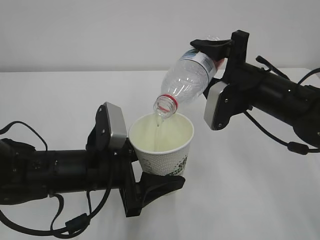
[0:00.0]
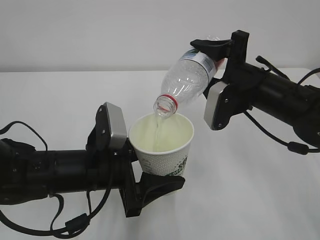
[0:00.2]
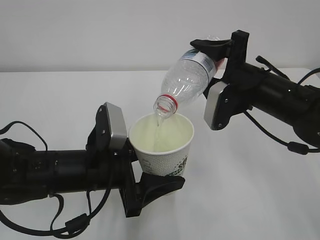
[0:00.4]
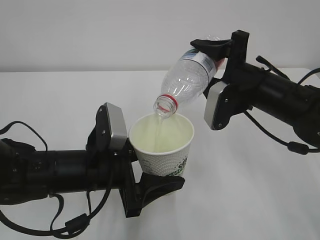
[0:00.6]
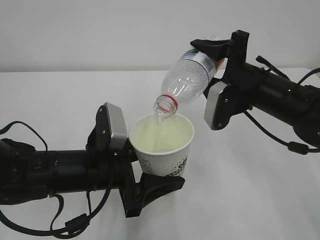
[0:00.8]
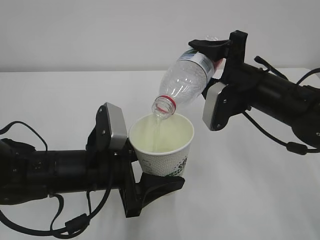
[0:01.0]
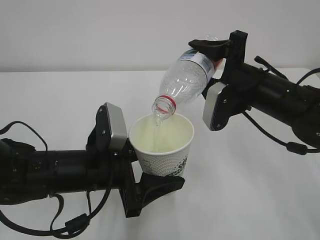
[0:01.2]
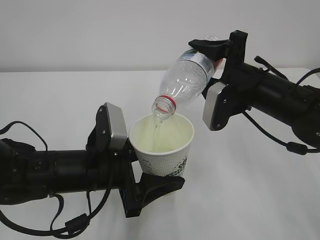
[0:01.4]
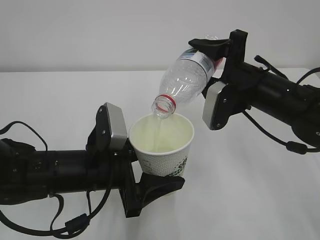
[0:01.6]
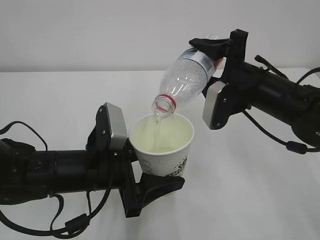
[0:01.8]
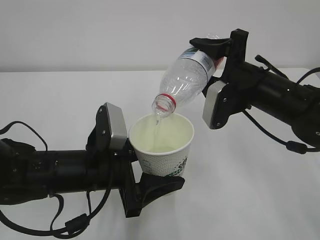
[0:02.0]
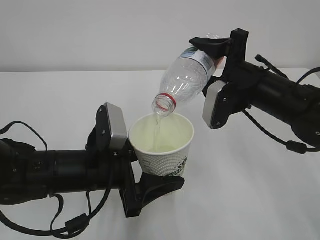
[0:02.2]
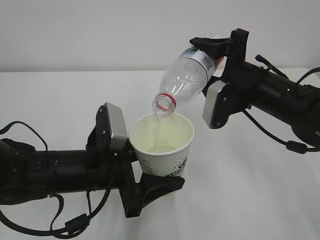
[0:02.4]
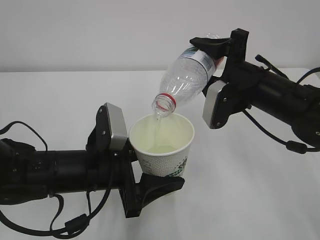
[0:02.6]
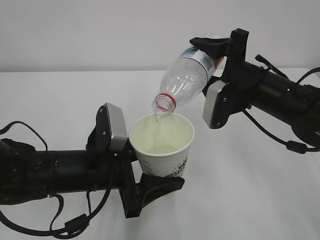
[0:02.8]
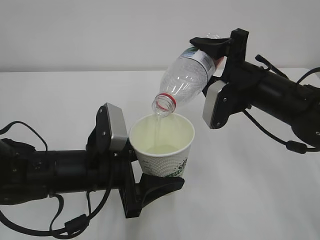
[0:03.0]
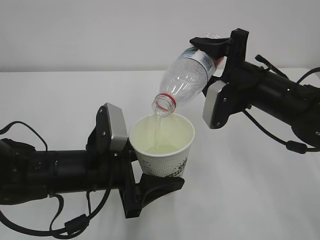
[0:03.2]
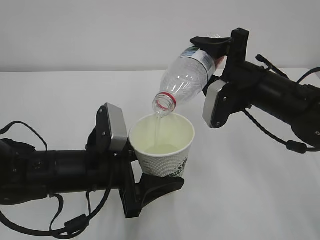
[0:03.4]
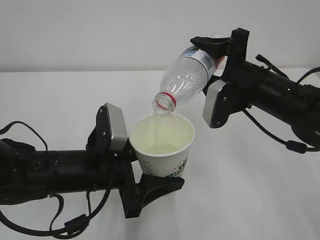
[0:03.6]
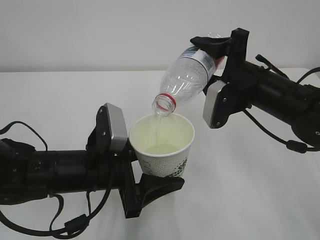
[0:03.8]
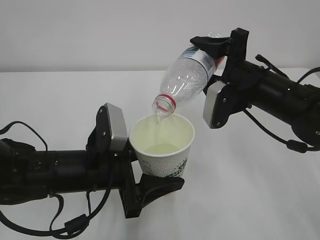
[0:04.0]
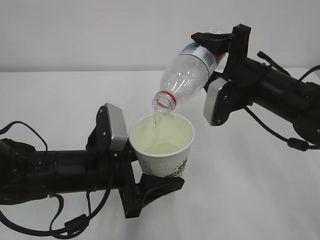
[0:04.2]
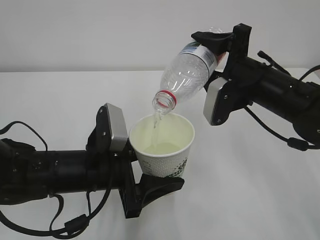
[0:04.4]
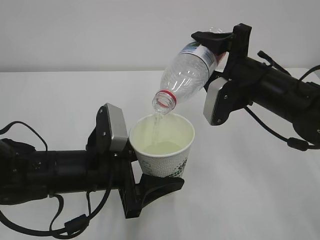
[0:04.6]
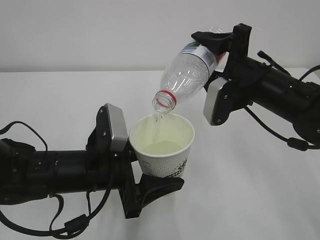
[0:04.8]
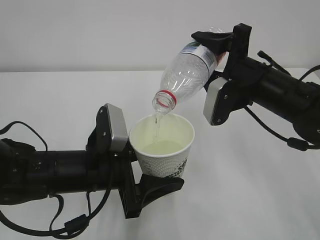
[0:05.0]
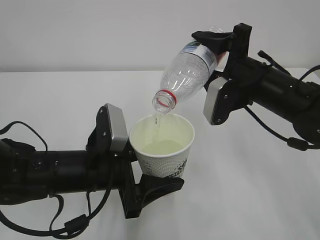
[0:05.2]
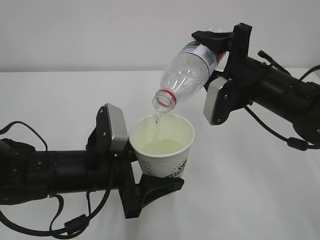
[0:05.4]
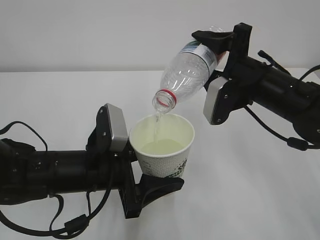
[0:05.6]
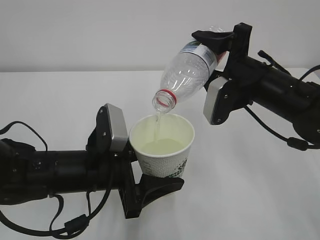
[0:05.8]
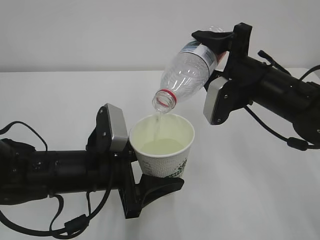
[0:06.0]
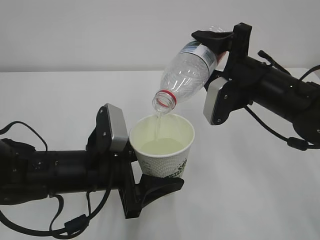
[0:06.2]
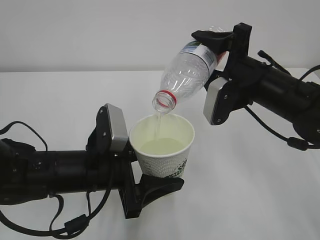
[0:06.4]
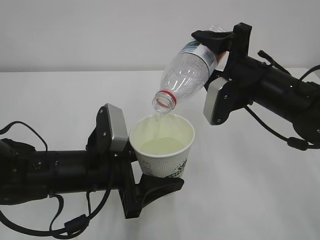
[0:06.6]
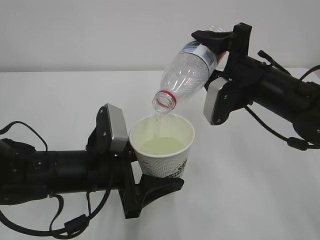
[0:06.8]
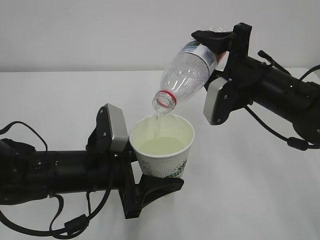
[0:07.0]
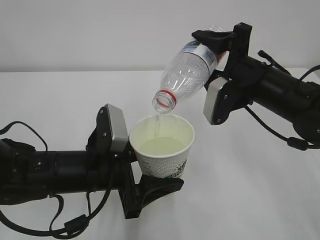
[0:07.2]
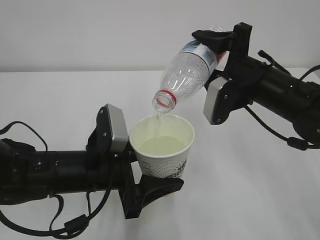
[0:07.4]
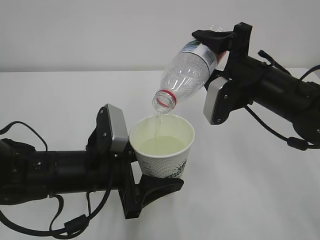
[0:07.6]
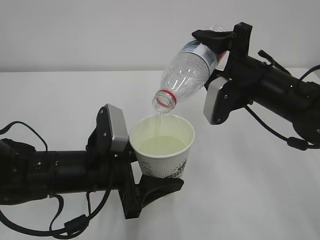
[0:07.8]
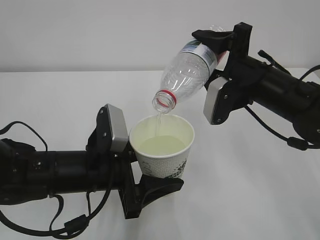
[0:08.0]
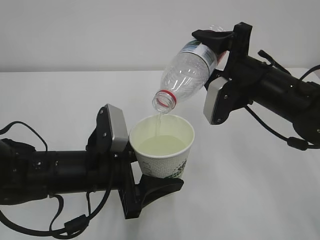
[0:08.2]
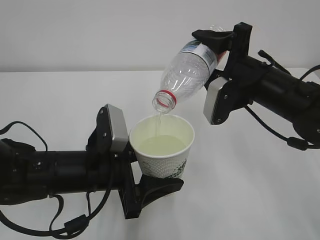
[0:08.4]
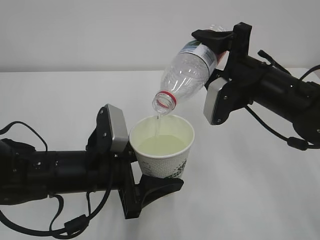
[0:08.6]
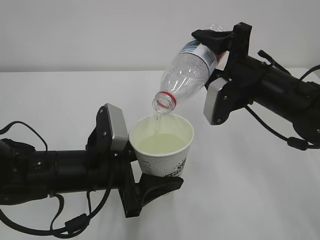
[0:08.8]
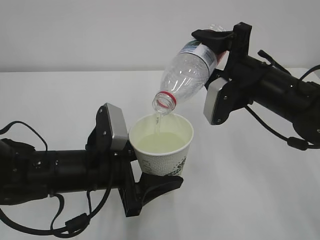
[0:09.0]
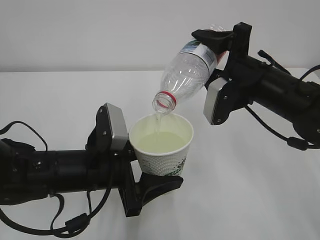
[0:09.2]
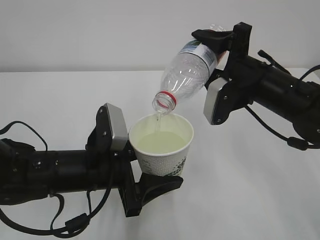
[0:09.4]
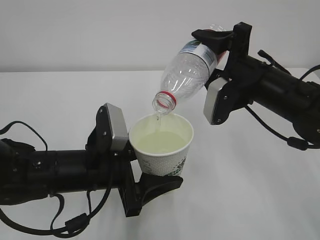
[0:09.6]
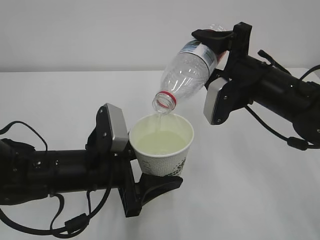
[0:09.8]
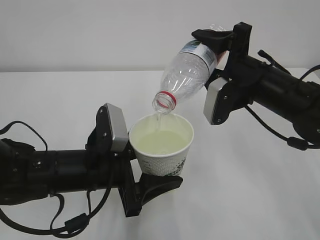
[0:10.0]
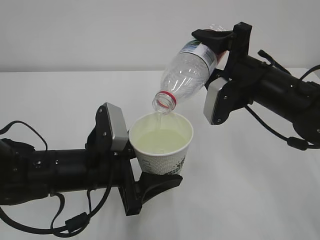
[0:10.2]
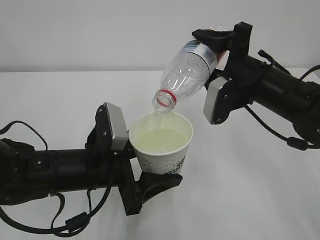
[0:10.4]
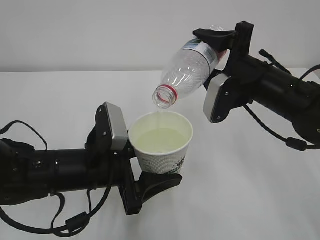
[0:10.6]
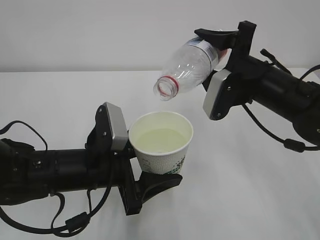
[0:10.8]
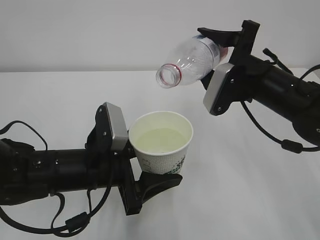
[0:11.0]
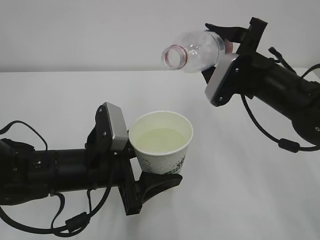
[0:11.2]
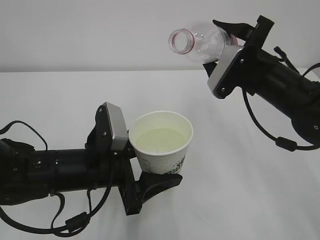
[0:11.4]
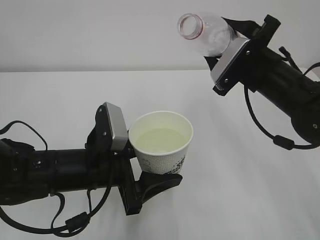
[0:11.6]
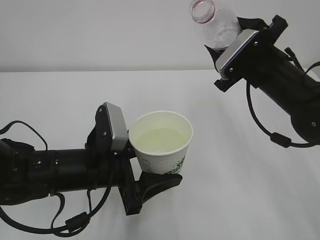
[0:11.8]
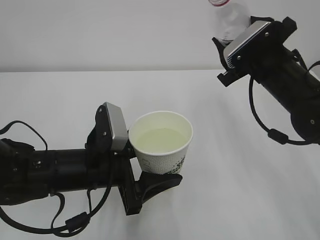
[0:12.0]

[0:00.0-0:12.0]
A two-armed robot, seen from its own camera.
0:00.0 to 0:07.6: Both grippers stay about where they are.
0:07.6 to 0:10.4: Neither gripper changes place.

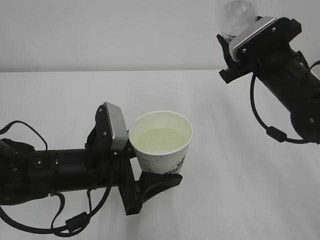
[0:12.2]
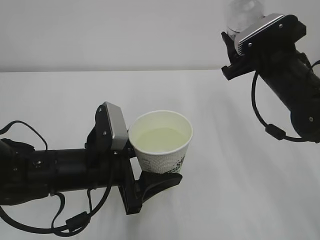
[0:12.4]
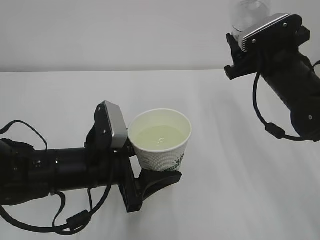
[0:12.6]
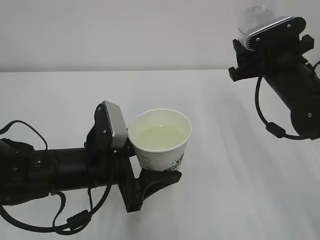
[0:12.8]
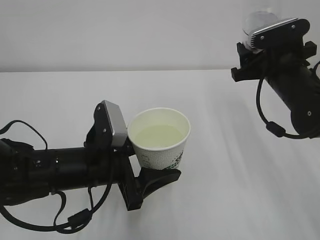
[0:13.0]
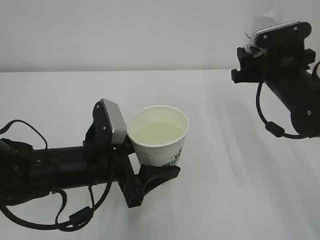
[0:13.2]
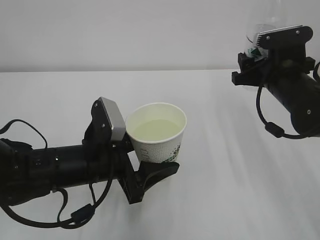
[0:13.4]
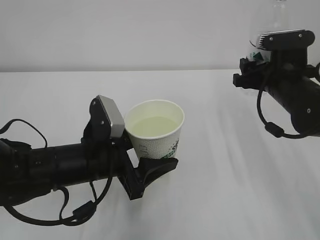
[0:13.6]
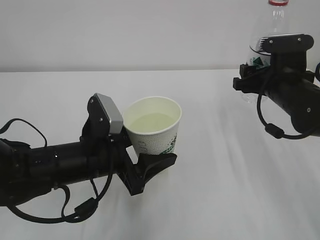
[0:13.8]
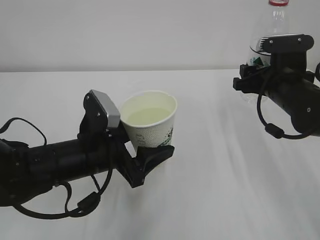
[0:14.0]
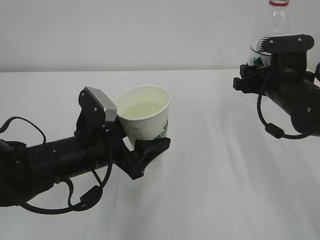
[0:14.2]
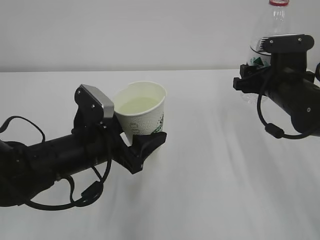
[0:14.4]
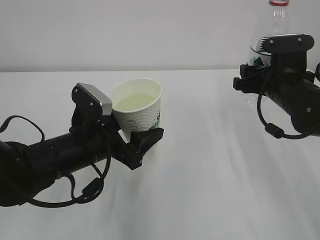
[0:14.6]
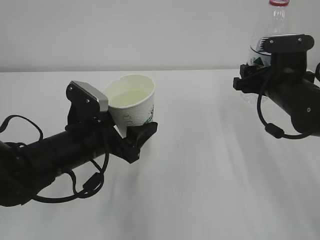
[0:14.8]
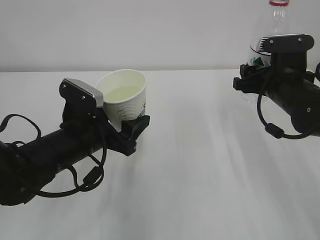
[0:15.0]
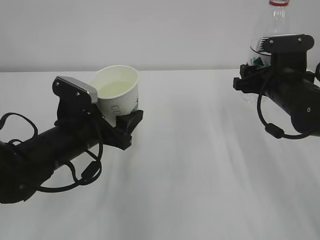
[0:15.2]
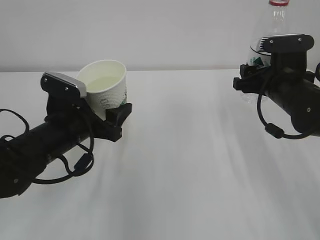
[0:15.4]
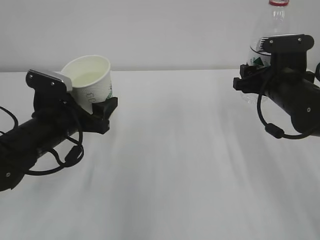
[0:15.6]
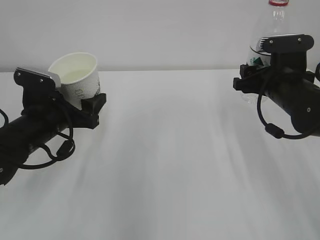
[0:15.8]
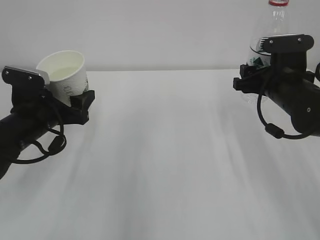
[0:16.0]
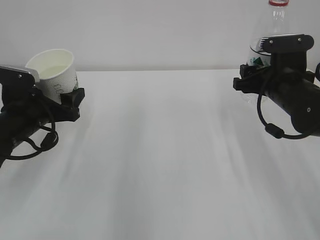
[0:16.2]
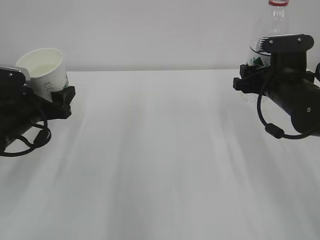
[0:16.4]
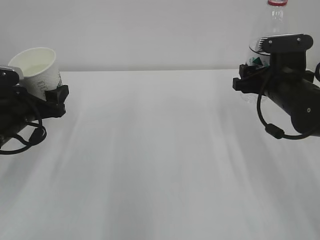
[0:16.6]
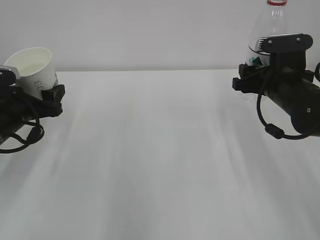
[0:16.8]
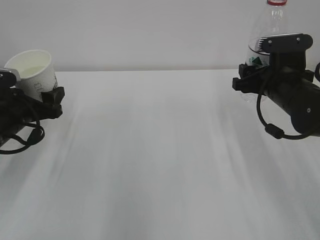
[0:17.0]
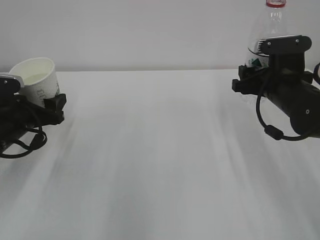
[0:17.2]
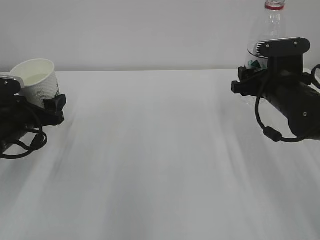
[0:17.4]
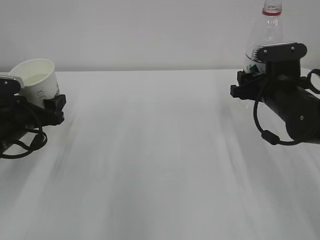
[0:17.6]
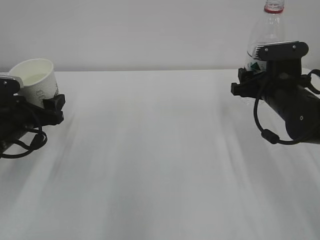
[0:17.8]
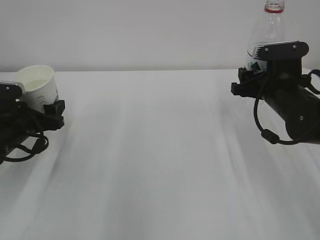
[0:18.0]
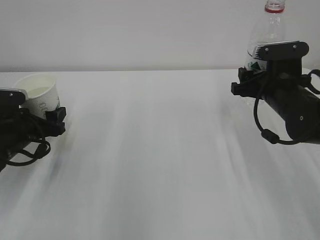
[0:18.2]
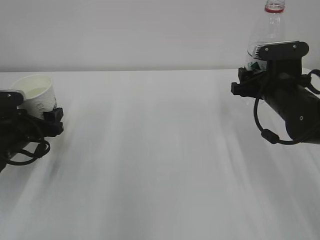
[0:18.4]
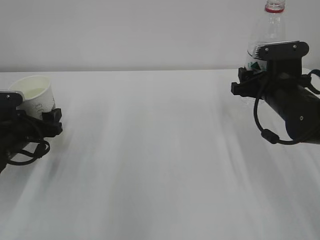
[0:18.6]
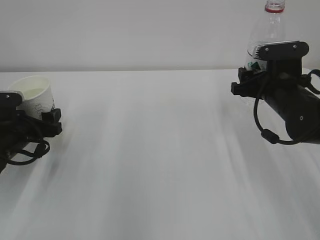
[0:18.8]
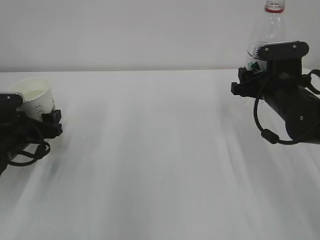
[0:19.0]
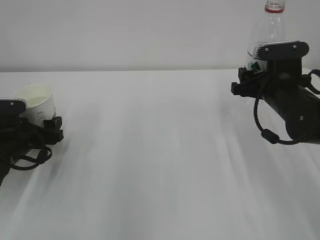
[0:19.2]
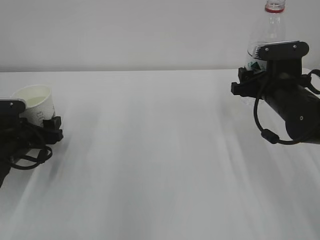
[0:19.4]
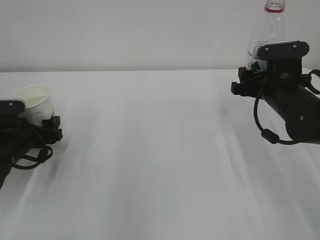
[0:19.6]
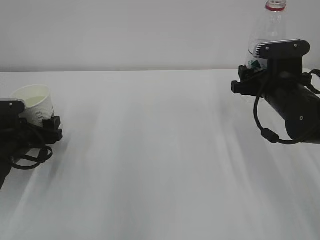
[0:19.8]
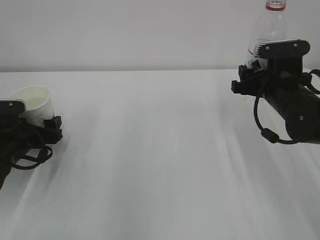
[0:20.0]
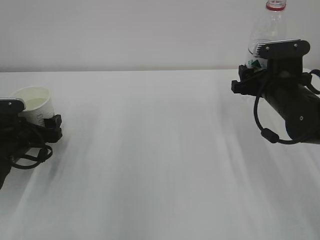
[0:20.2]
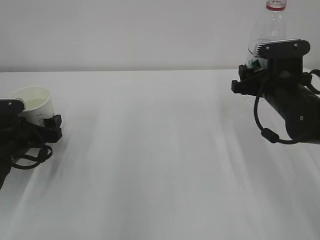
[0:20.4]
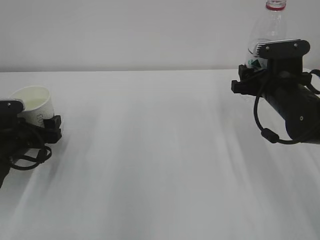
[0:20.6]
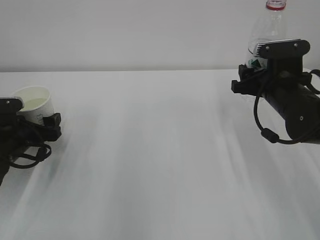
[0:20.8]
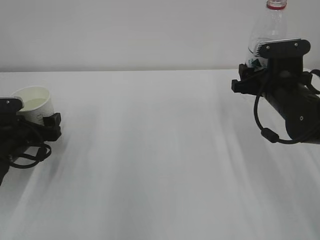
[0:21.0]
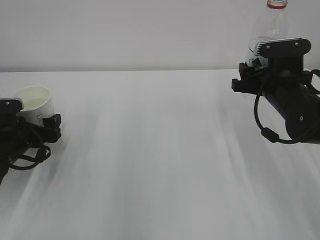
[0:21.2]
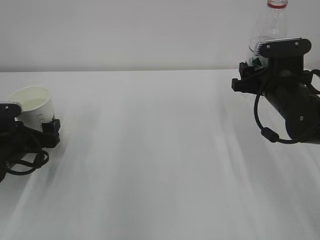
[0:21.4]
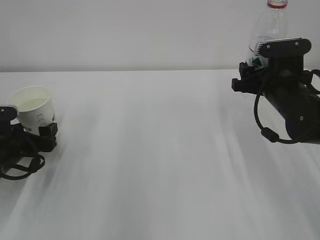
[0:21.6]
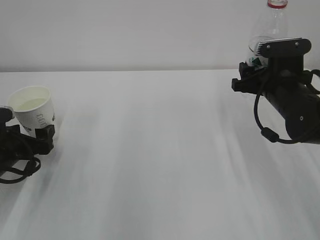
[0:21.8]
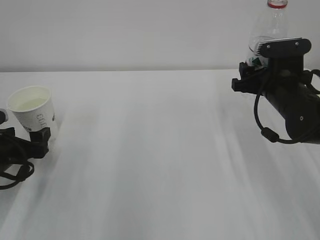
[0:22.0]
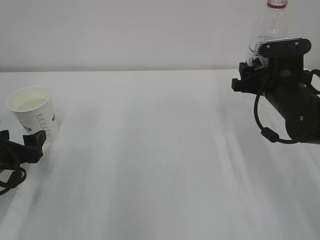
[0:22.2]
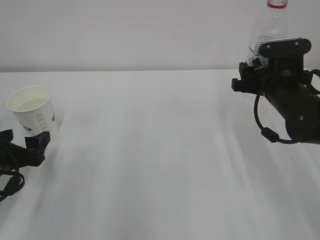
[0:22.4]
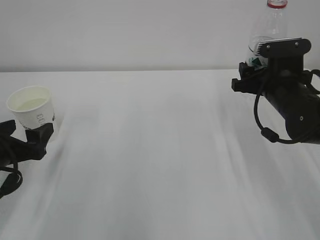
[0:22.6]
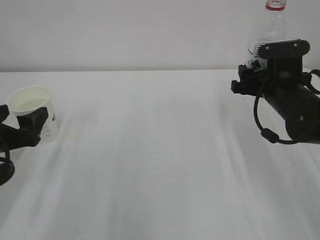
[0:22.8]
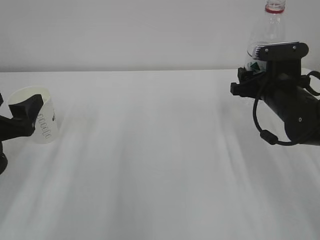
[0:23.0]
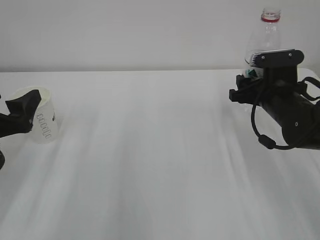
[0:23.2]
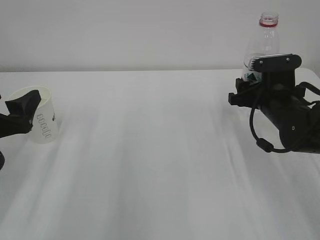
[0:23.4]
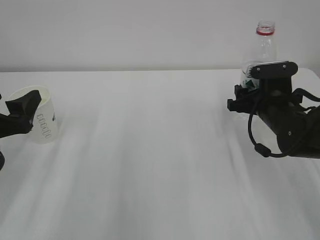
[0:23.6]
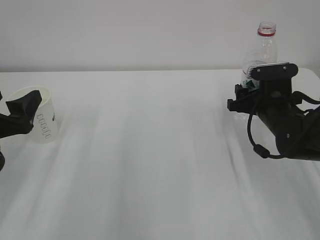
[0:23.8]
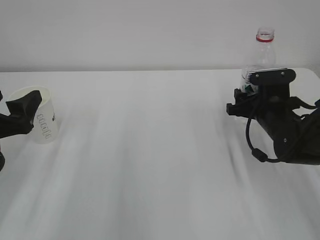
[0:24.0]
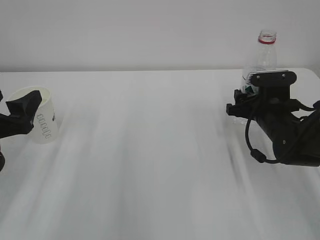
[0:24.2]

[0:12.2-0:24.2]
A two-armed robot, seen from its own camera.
0:15.2 to 0:16.6: The left gripper heads to the left, covering roughly 10 cm.
0:16.6 to 0:18.2: The grippers stay close to where they were, moving slightly.
0:18.2 to 0:19.8: The grippers make only small movements.
0:19.8 to 0:21.2: The left gripper opens up.
0:21.2 to 0:22.6: The left gripper goes approximately 10 cm backward.
0:22.6 to 0:24.2: The right gripper goes some 5 cm downward, while the left gripper is displaced upward by approximately 5 cm.
